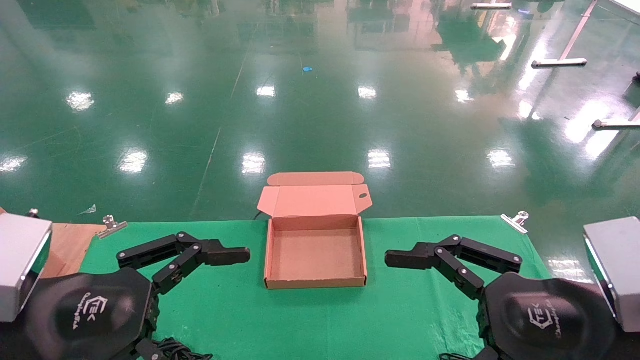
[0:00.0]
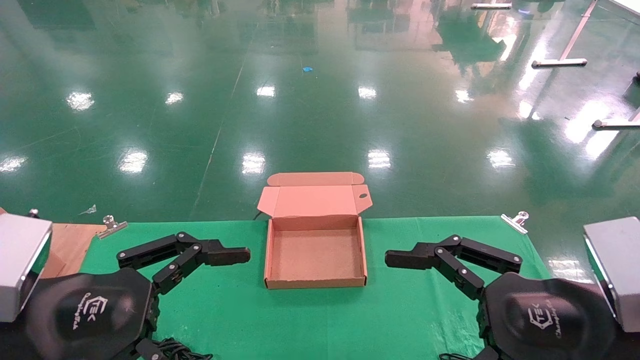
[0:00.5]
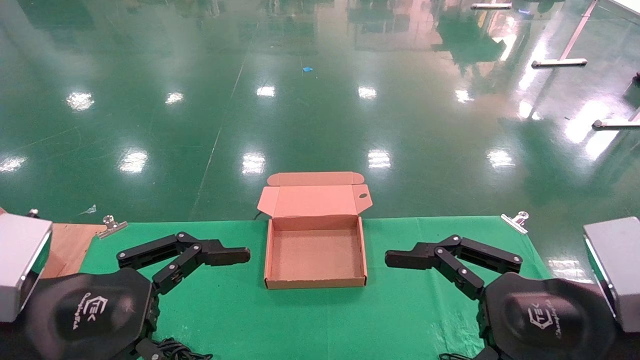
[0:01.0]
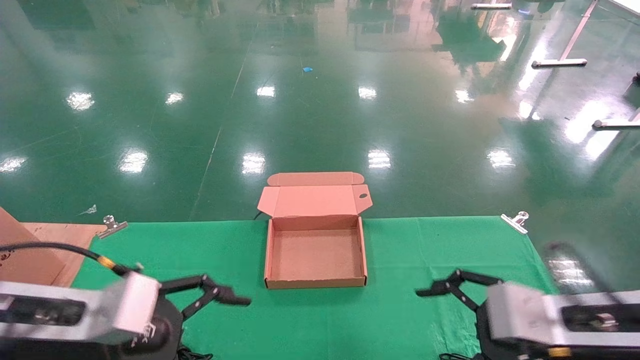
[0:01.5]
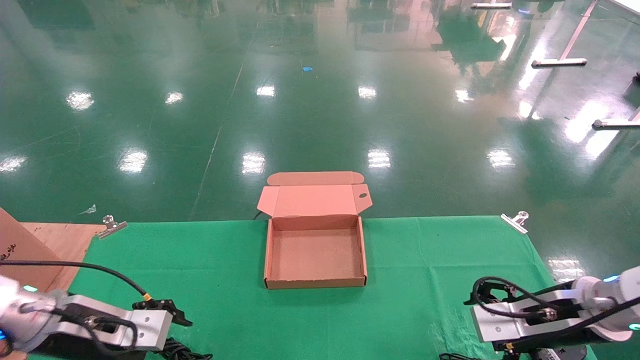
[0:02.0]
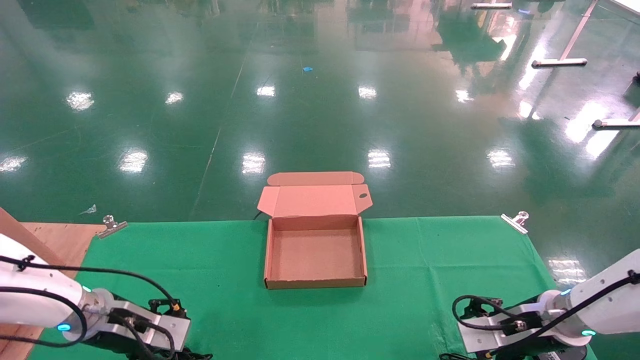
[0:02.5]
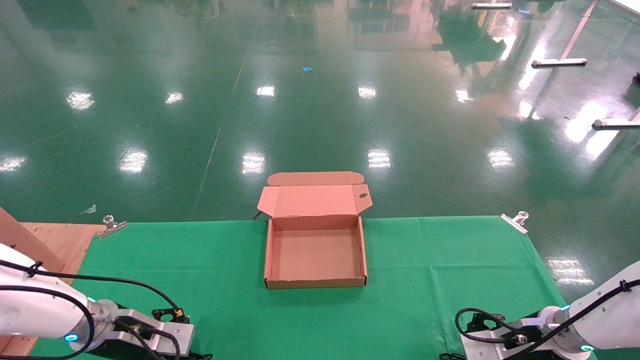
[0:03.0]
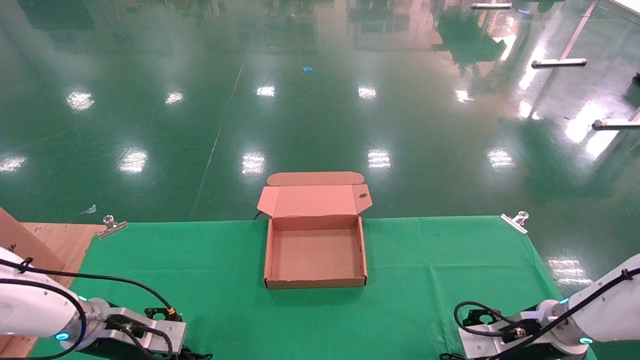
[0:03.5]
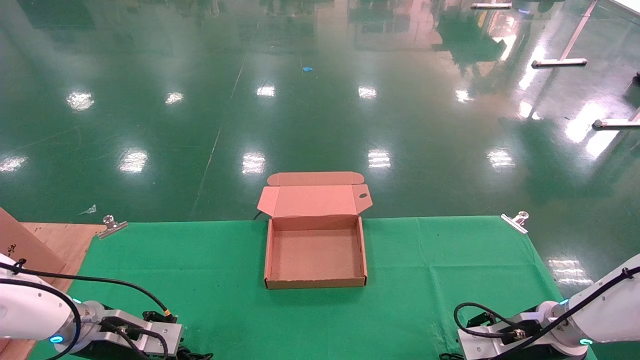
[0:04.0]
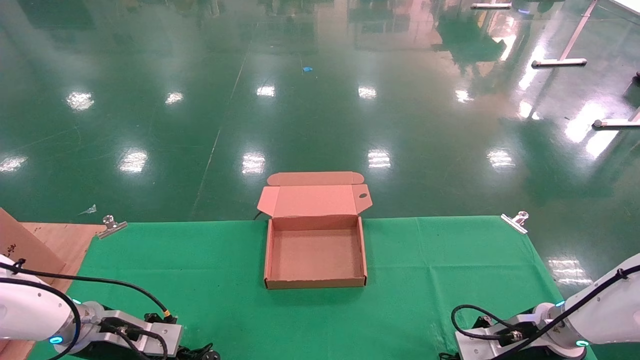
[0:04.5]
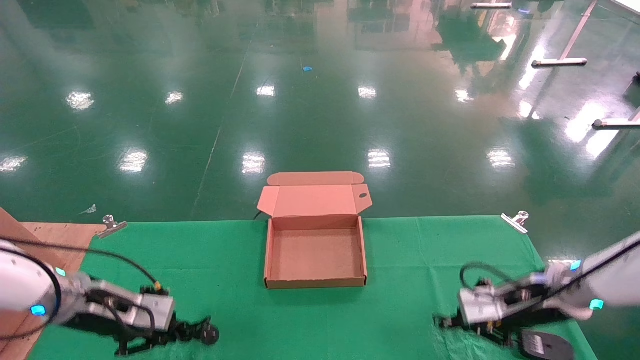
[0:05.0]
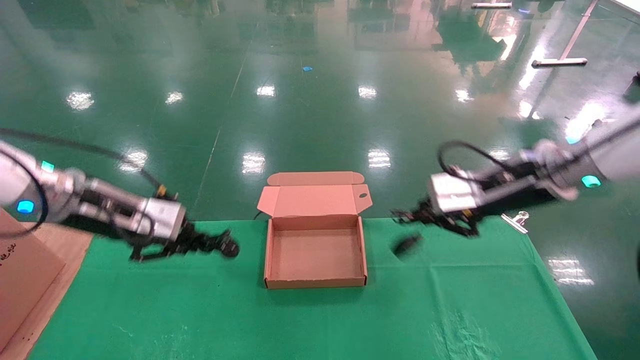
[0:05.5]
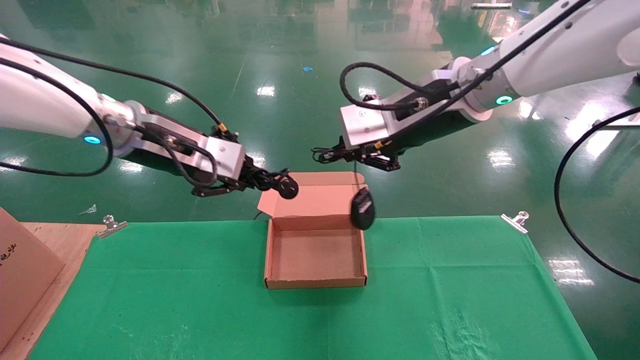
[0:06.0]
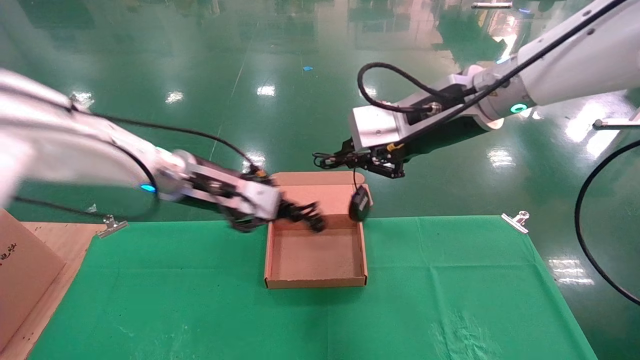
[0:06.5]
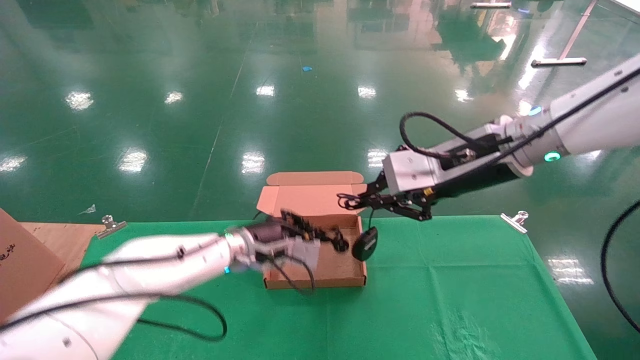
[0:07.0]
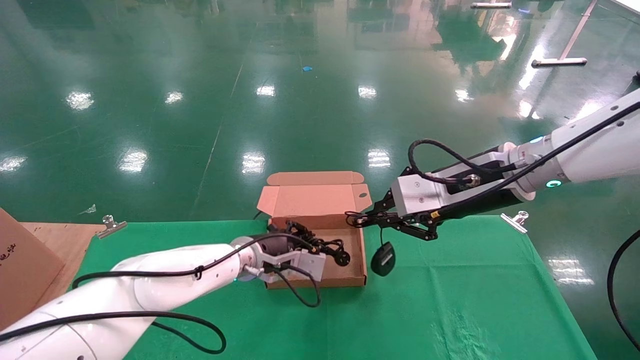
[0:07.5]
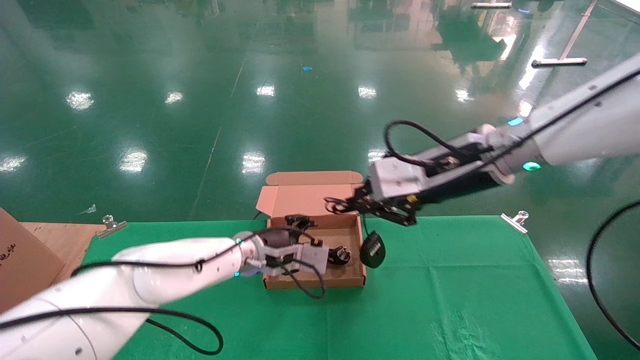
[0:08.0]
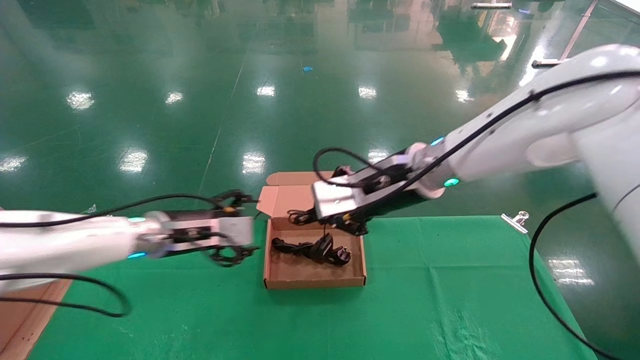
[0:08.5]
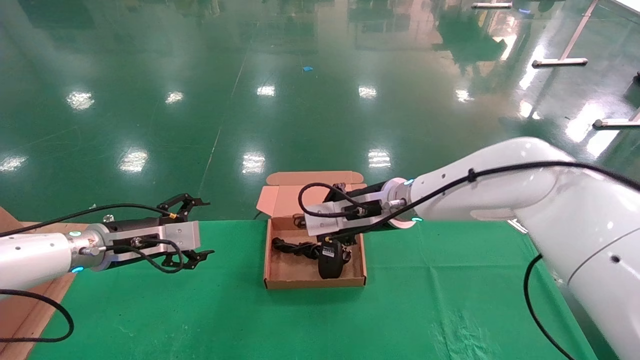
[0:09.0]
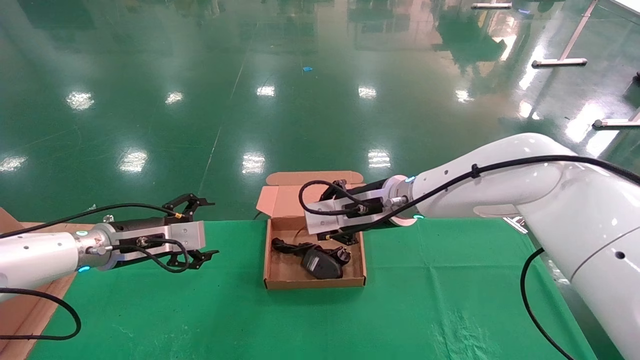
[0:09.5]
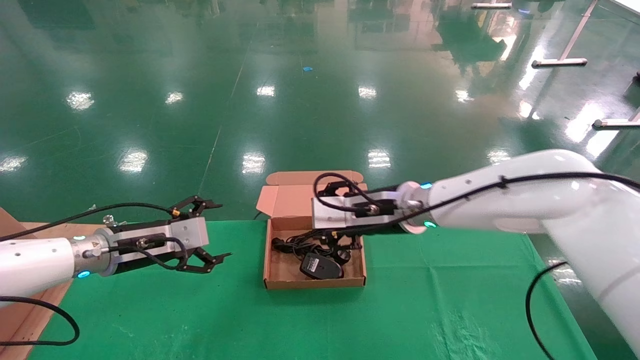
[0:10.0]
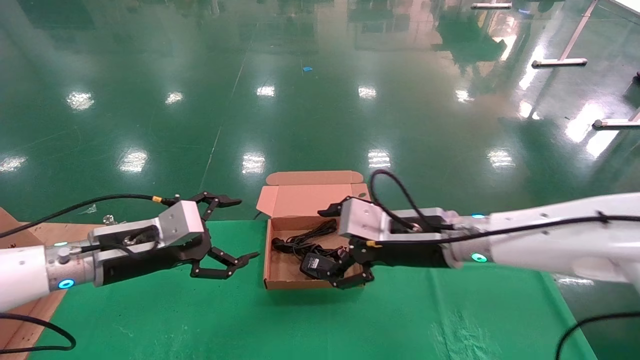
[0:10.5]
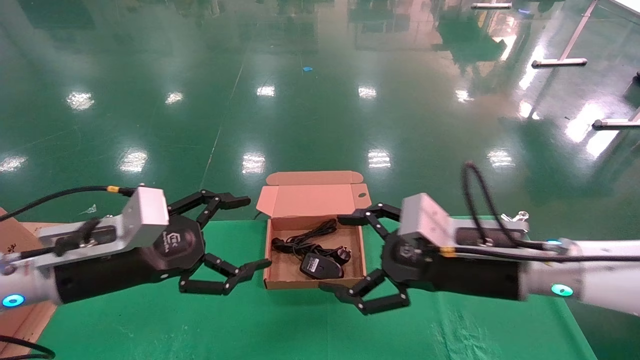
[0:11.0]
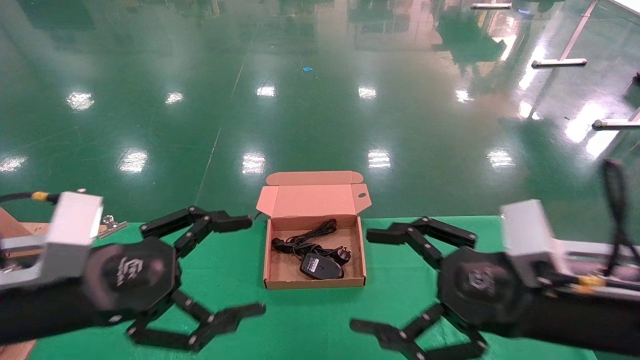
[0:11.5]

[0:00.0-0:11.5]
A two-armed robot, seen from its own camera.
Step, 0:01.0 to 0:05.5: Grab and lift both the mouse and power cord from the accessory packaging area at the same time.
Step, 0:06.0 to 0:10.0: Place the mouse and power cord into the box.
0:00.0 to 0:02.0: Both grippers move forward and downward, roughly 20 cm.
0:02.0 to 0:04.0: The two grippers go roughly 10 cm downward and forward. The left gripper closes its fingers, while the right gripper closes its fingers.
0:04.0 to 0:06.0: The left gripper shifts roughly 30 cm upward and to the right, and closes, while the right gripper moves upward and to the left, about 35 cm, and closes up.
0:06.0 to 0:07.5: The left gripper shifts about 25 cm downward, to the right and forward, while the right gripper is displaced downward and to the right by about 10 cm.
0:07.5 to 0:09.5: The left gripper heads to the left, covering some 20 cm, and opens. Meanwhile the right gripper heads to the left, forward and downward, covering about 15 cm.
0:09.5 to 0:11.5: The right gripper moves backward and to the right, approximately 25 cm, and opens its fingers, while the left gripper heads backward, covering approximately 20 cm.

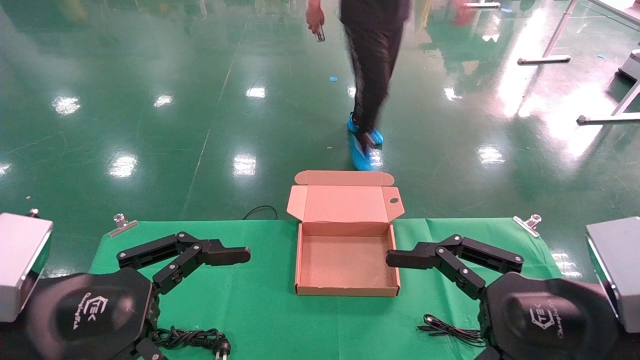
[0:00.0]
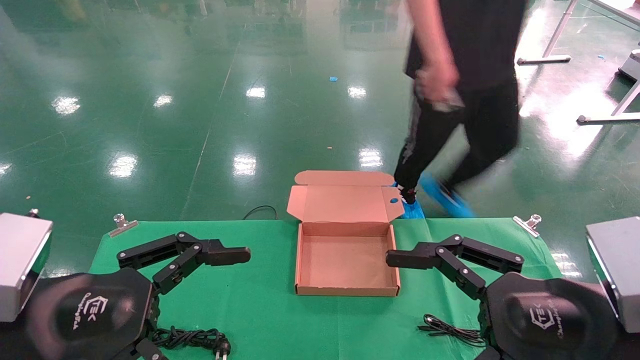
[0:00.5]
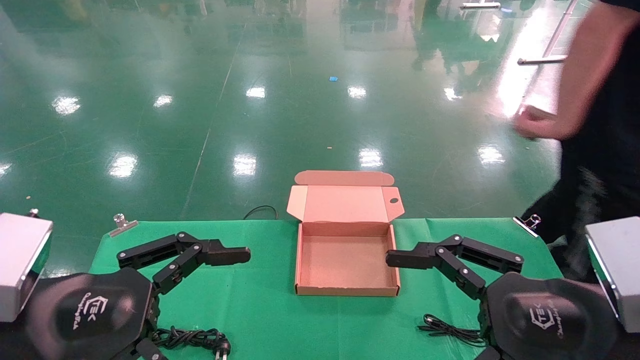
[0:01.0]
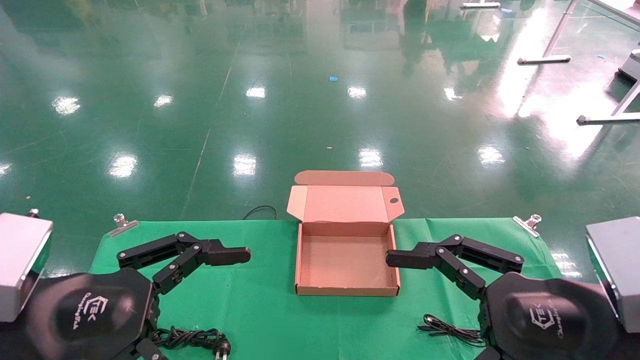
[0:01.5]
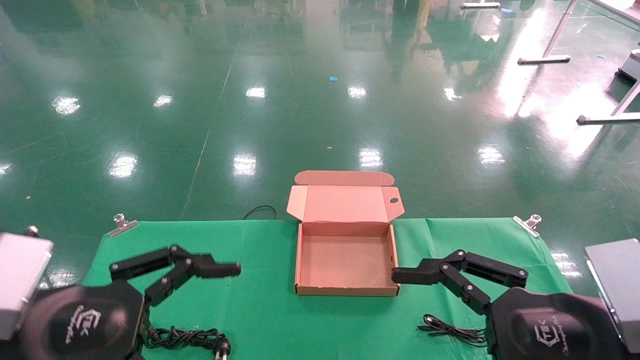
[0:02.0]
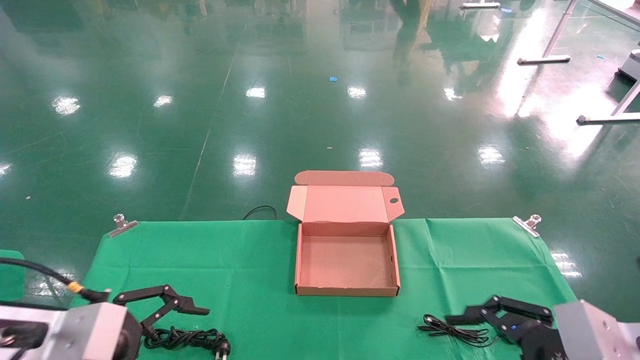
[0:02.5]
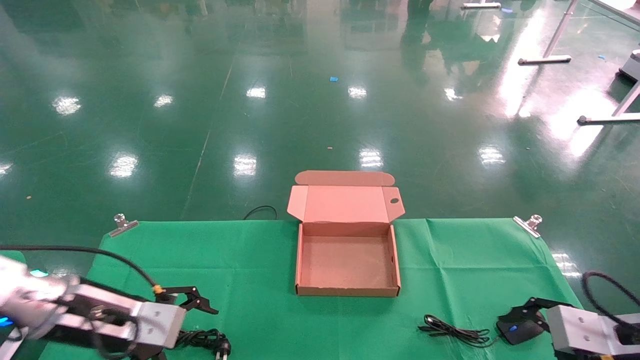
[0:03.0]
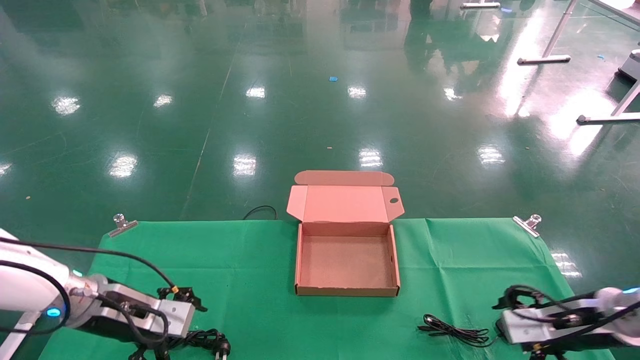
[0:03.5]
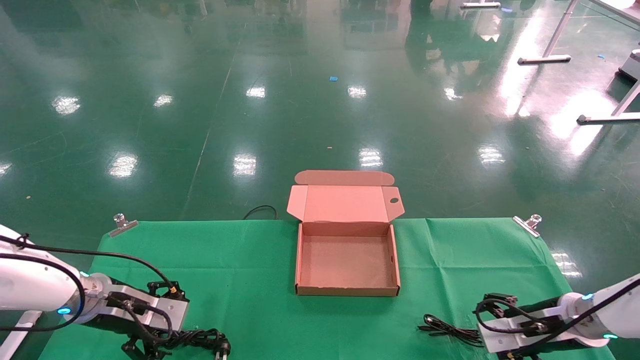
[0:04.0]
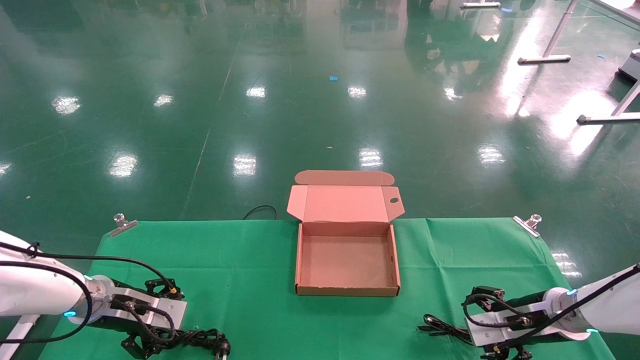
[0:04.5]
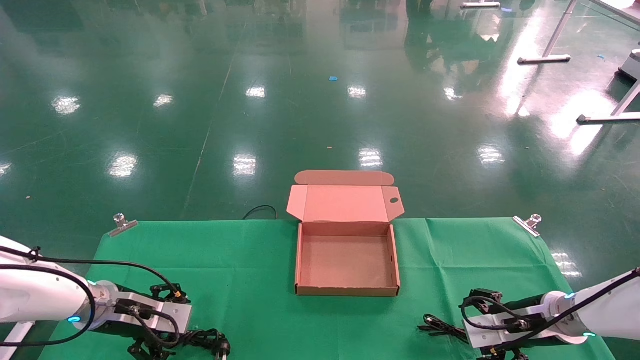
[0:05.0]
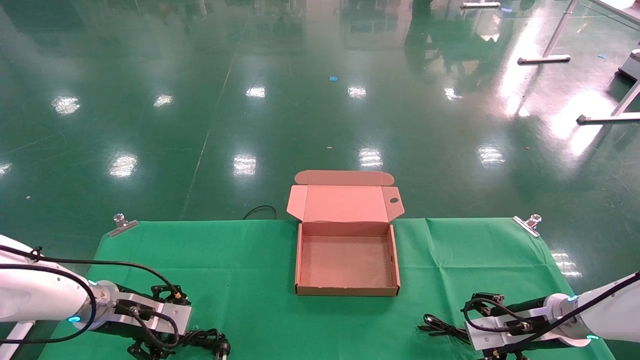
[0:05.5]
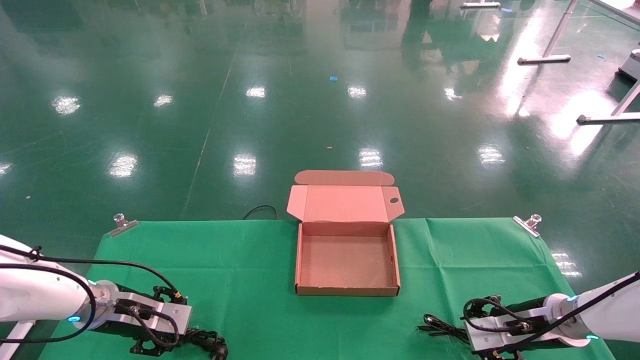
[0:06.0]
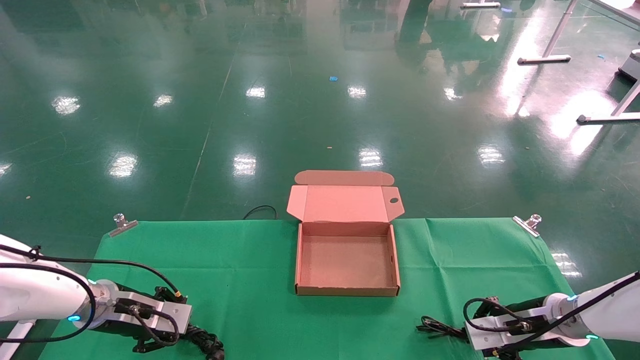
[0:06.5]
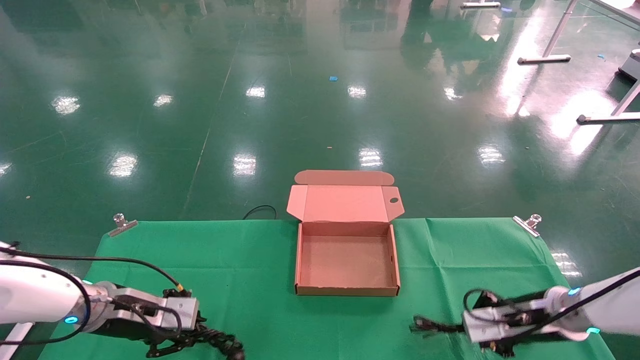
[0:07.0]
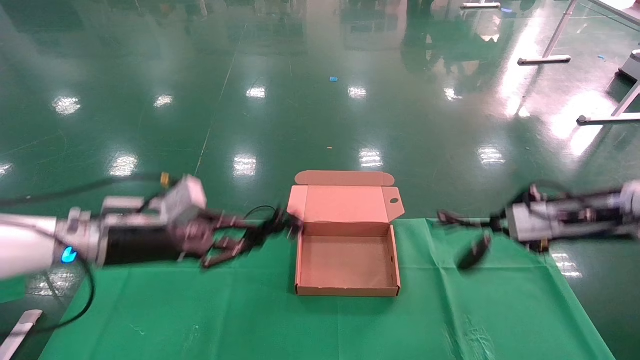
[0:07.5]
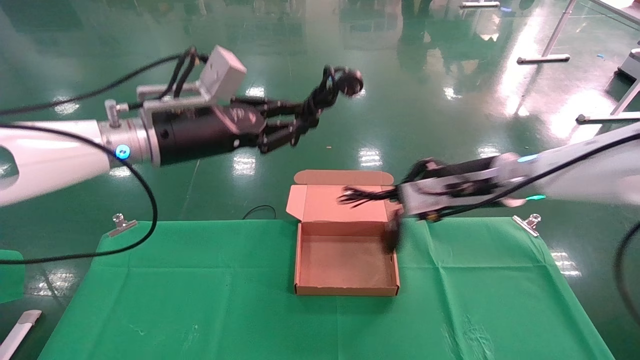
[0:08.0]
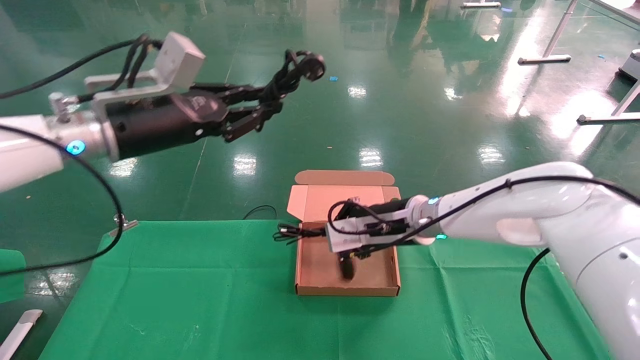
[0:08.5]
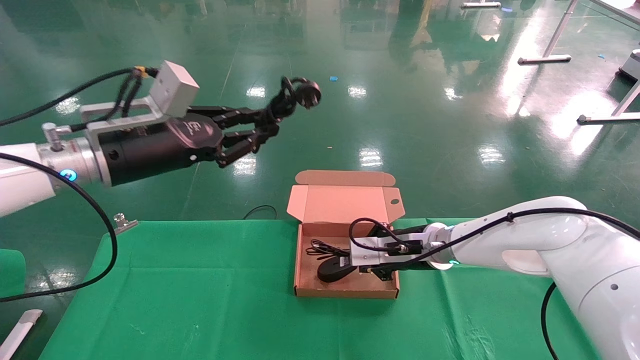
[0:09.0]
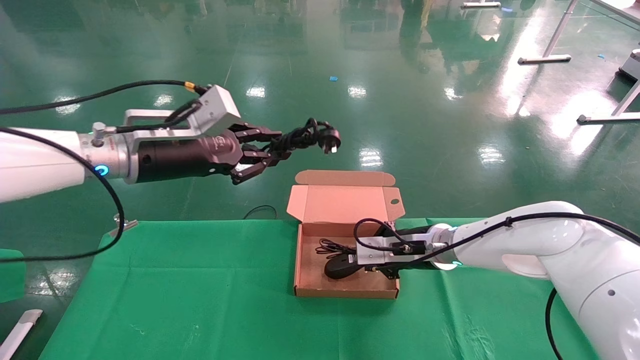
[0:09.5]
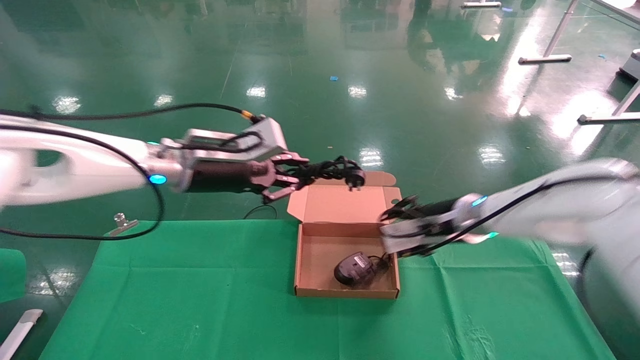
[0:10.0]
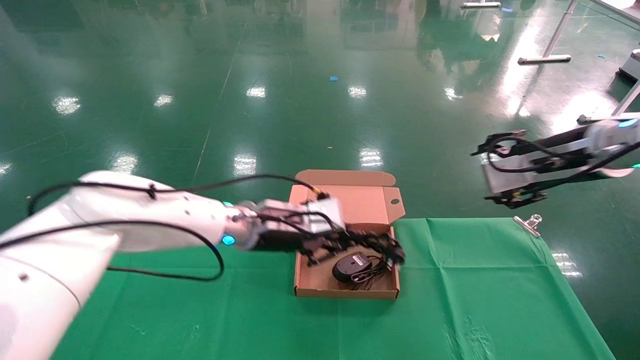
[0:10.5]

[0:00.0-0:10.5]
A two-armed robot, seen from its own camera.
Step, 0:02.0 to 0:06.5: Grab and lift both the mouse and power cord from the accessory packaging area at the same time.
0:00.0 to 0:02.0: The grippers move only a little.
0:02.0 to 0:04.0: Both grippers move forward and downward, about 25 cm.
0:04.0 to 0:06.5: The right gripper closes. Meanwhile the left gripper closes.
0:06.5 to 0:08.5: The right gripper heads to the left and upward, covering about 25 cm, while the left gripper is displaced upward by some 25 cm.
0:08.5 to 0:10.5: The right gripper travels to the right and upward by approximately 20 cm, and opens its fingers; the left gripper shifts some 20 cm to the right, downward and forward.
